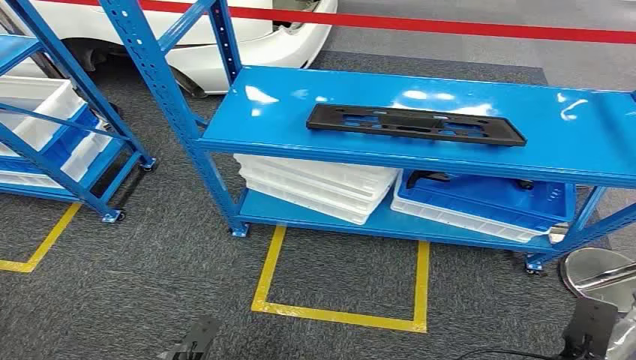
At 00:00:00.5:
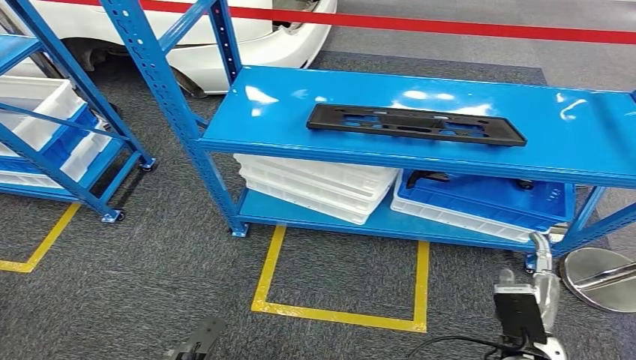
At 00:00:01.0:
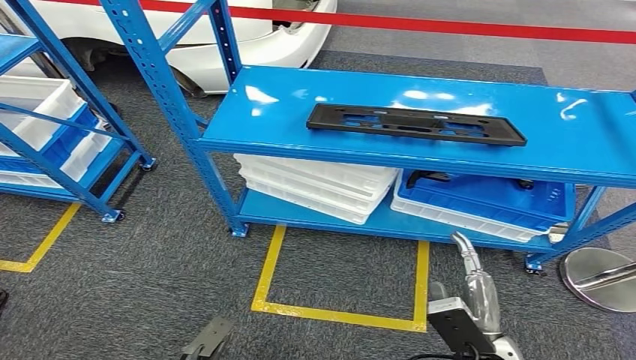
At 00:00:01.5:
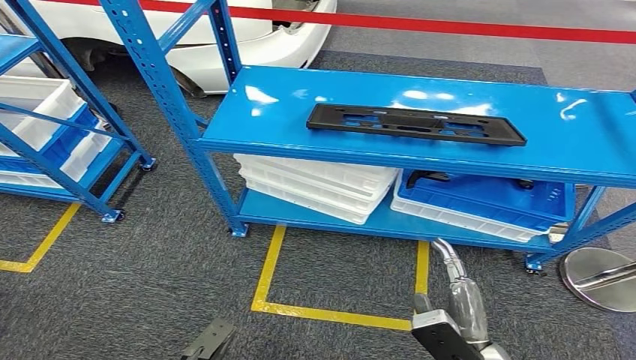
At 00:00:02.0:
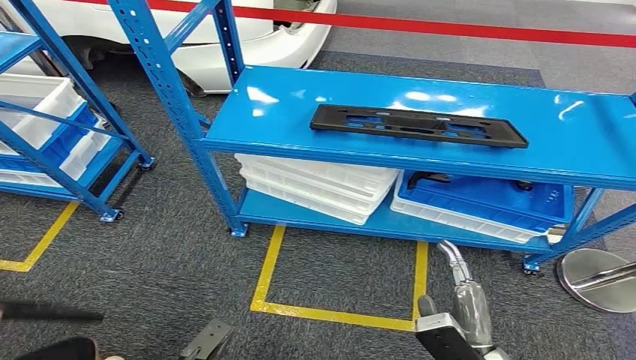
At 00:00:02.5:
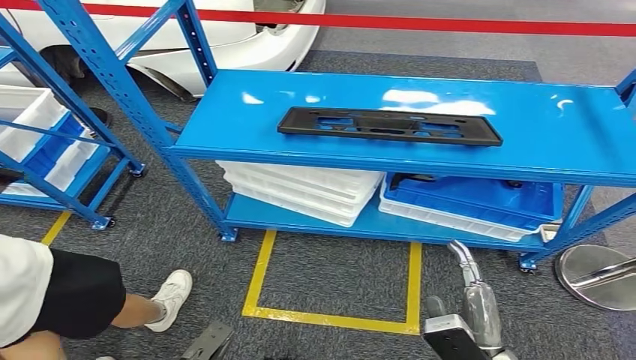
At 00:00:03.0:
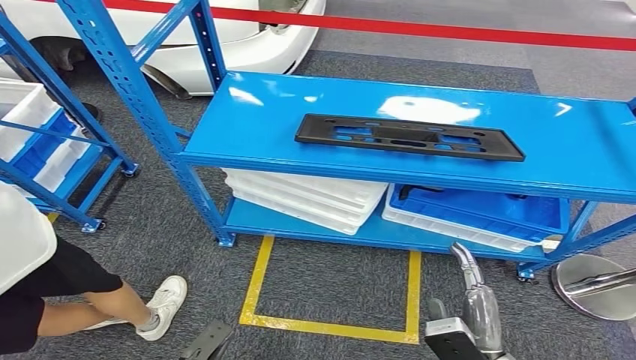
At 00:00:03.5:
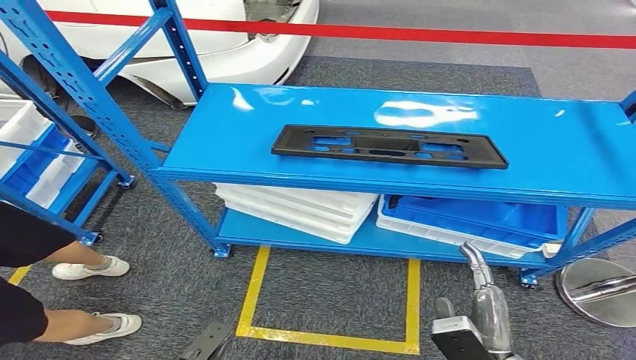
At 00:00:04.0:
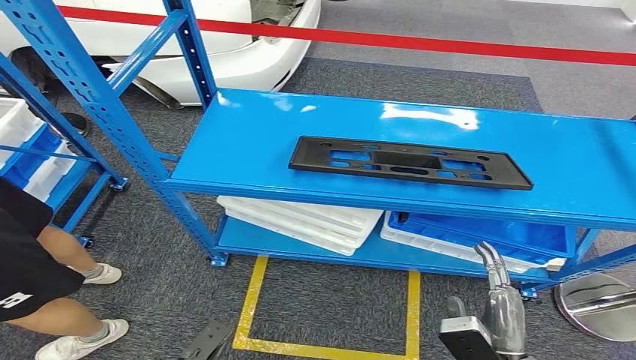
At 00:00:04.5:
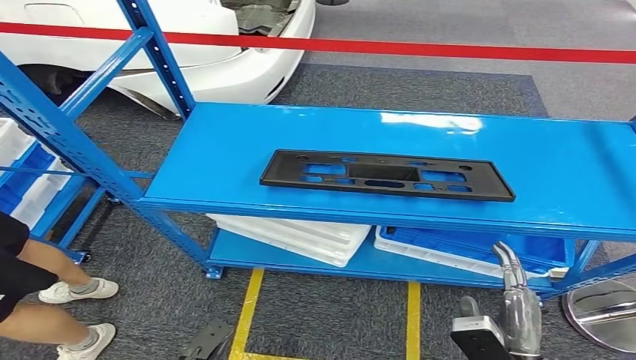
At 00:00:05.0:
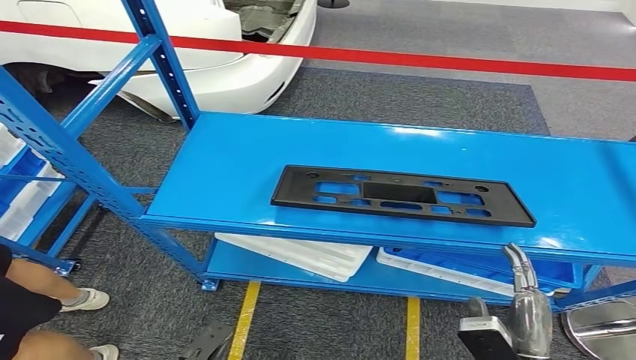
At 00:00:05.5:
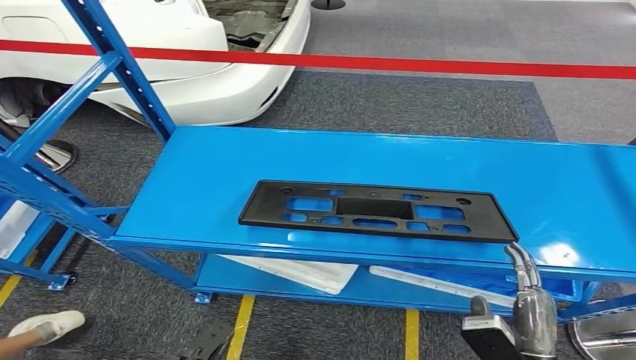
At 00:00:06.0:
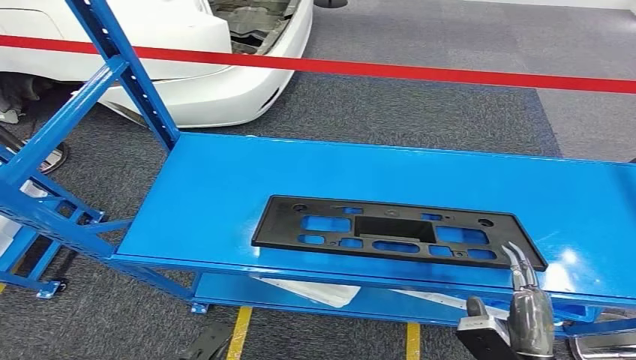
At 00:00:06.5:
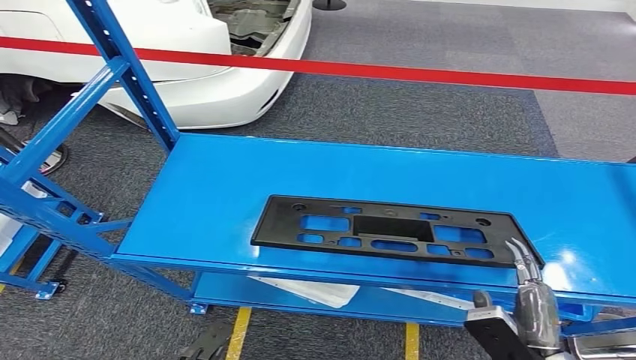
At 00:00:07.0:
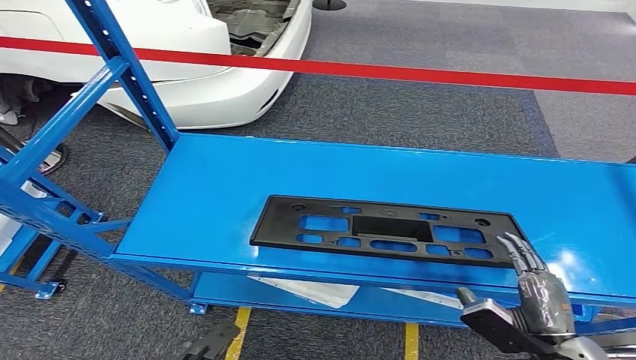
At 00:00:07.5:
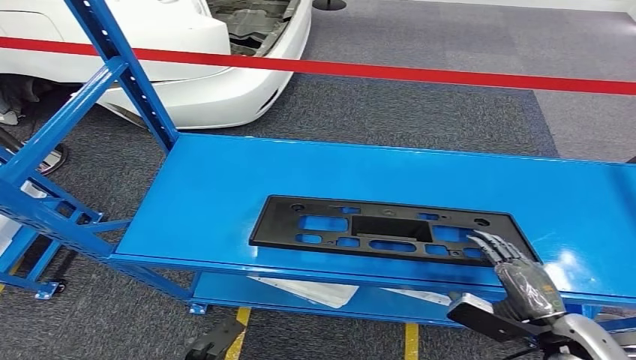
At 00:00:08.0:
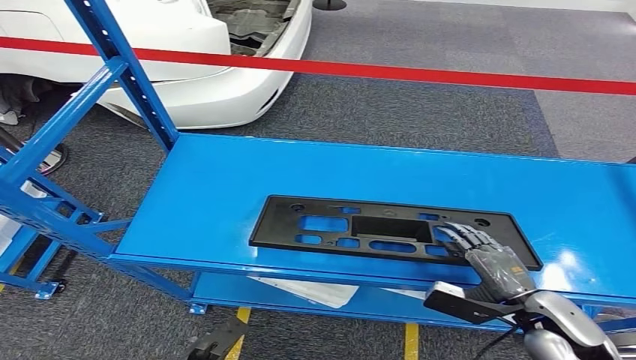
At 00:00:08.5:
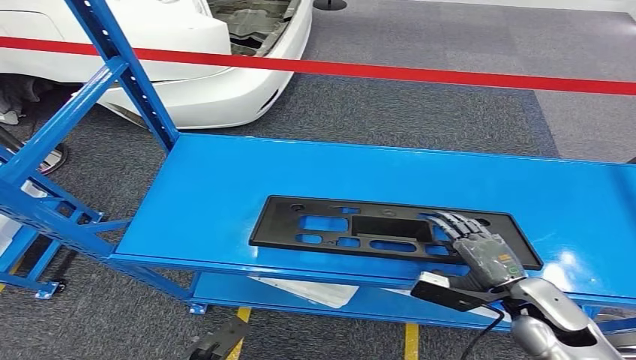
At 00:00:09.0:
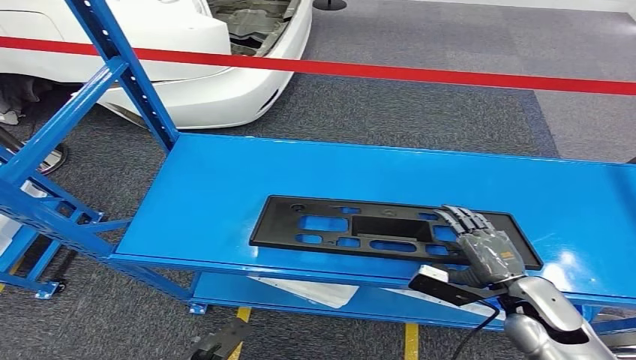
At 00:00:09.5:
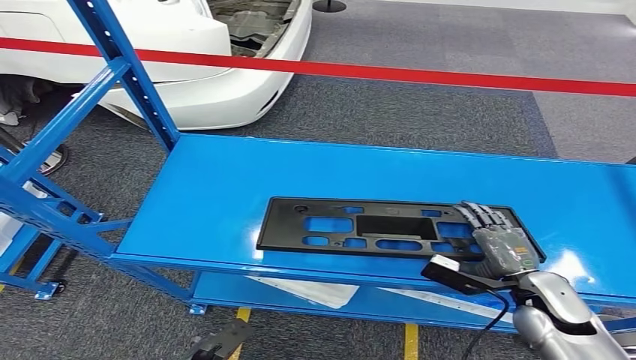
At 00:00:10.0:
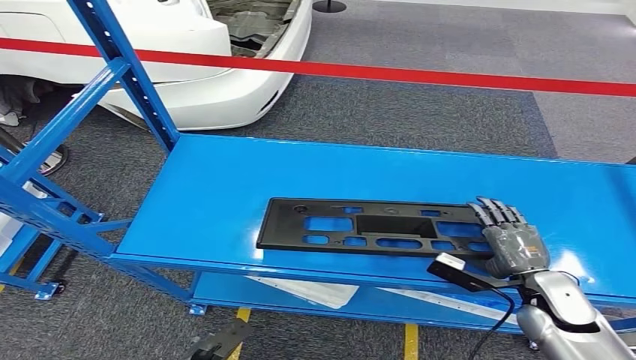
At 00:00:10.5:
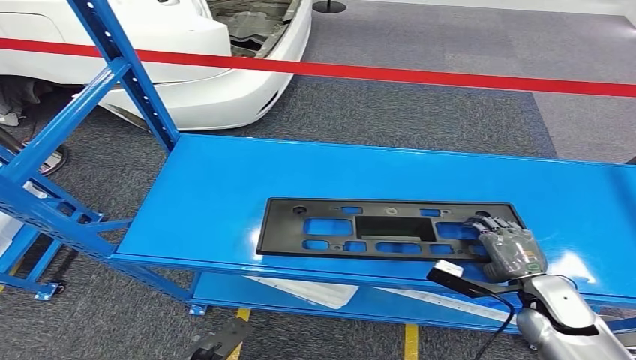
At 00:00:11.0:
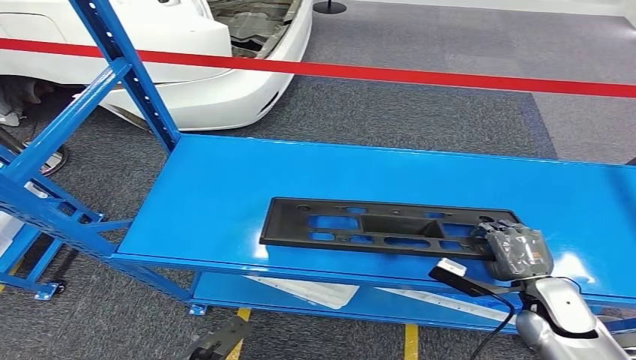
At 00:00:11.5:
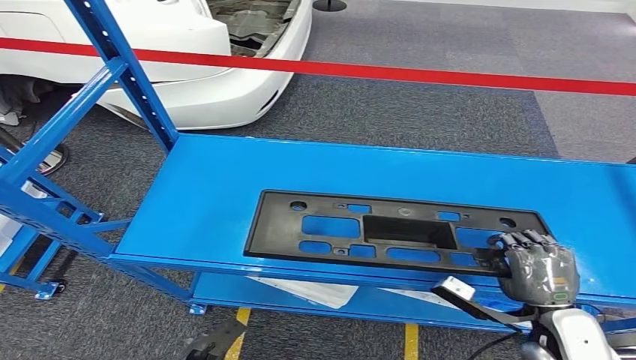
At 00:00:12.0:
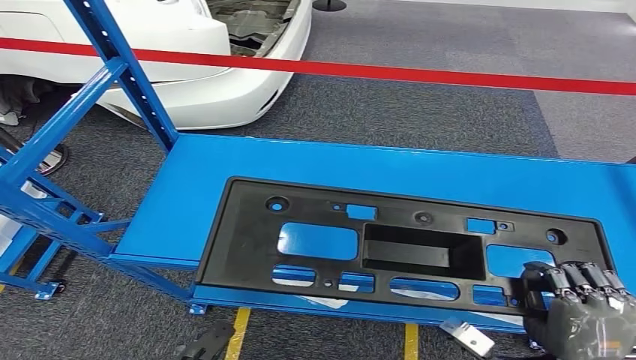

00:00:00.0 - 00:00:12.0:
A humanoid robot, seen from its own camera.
Step, 00:00:00.0 - 00:00:12.0: Pick up the large material from the shelf.
00:00:06.0 - 00:00:08.0: The right hand travels forward and to the right by about 10 cm.
00:00:10.0 - 00:00:12.0: The right hand is displaced backward and upward by approximately 15 cm.
